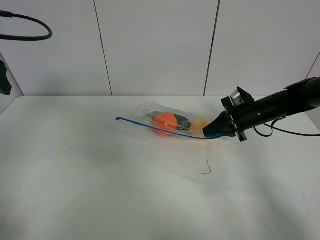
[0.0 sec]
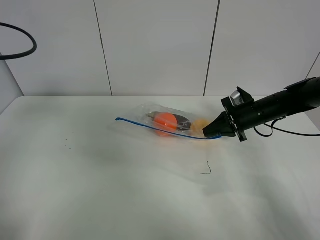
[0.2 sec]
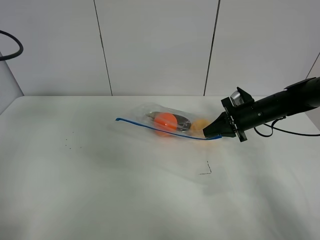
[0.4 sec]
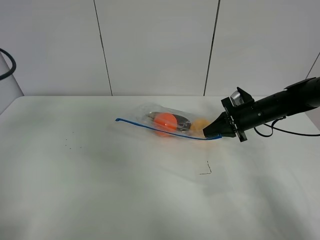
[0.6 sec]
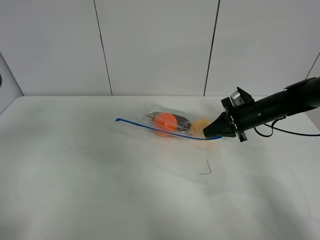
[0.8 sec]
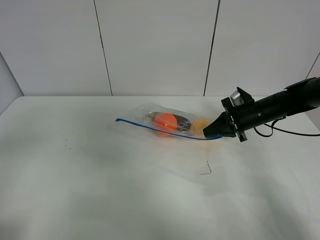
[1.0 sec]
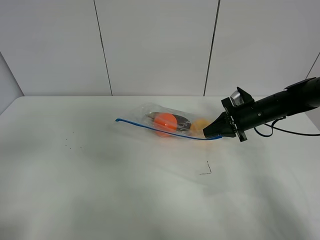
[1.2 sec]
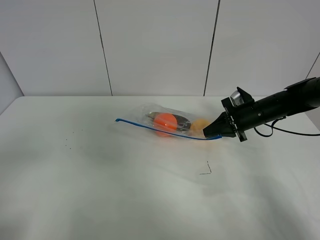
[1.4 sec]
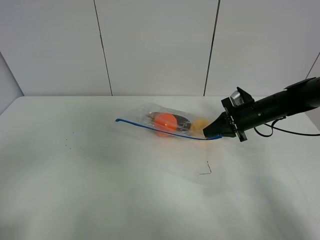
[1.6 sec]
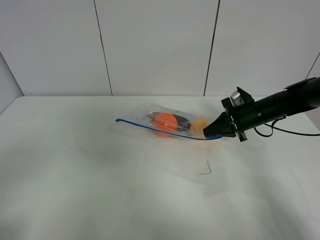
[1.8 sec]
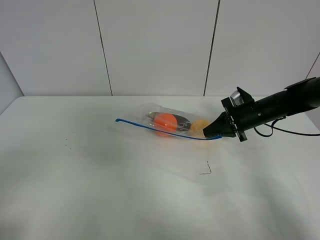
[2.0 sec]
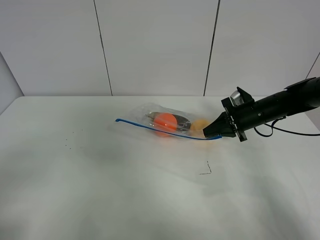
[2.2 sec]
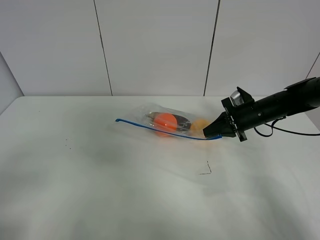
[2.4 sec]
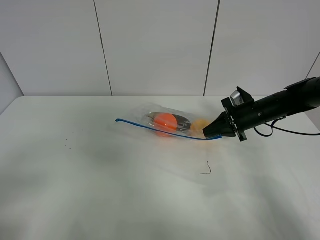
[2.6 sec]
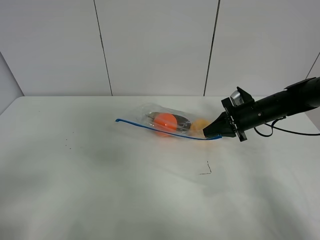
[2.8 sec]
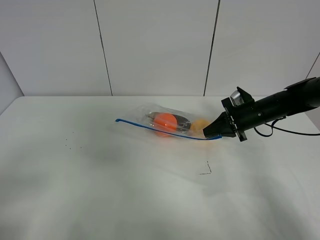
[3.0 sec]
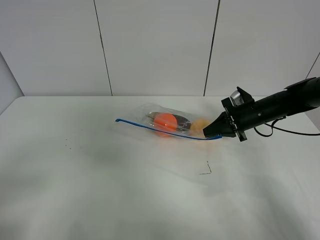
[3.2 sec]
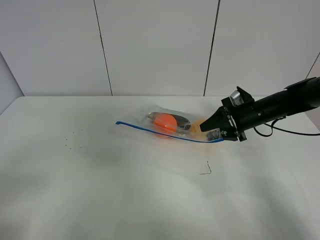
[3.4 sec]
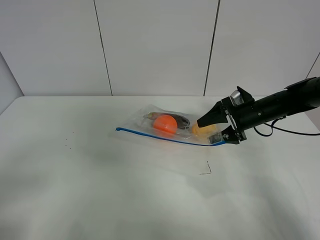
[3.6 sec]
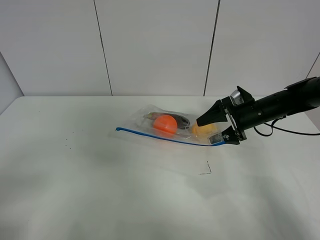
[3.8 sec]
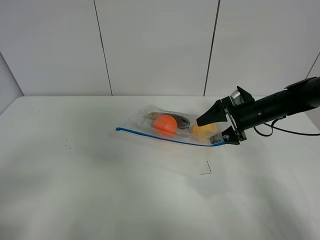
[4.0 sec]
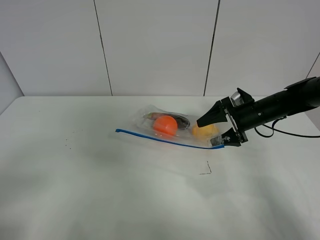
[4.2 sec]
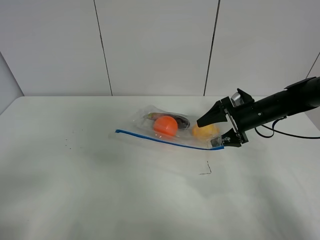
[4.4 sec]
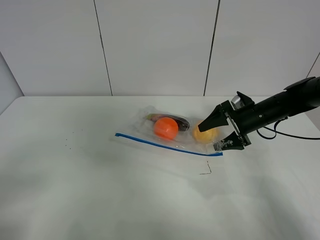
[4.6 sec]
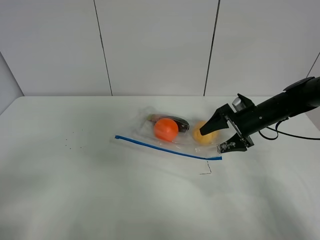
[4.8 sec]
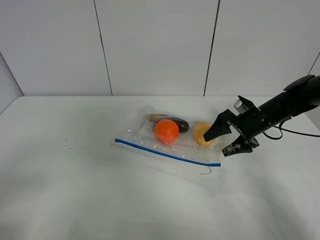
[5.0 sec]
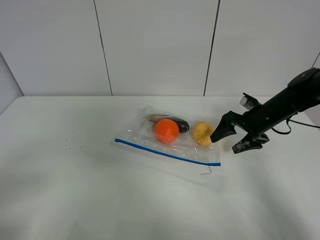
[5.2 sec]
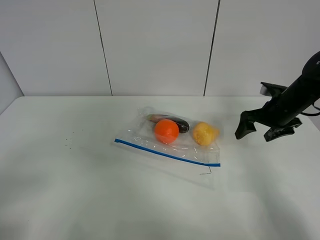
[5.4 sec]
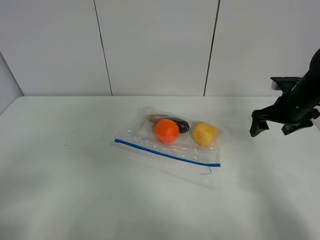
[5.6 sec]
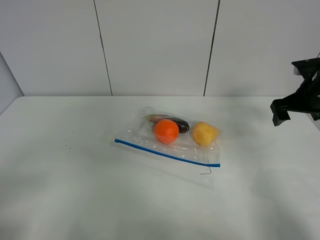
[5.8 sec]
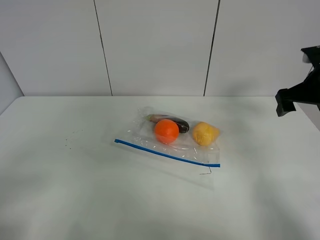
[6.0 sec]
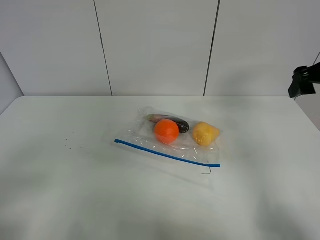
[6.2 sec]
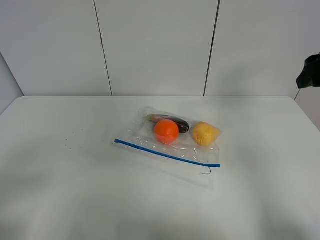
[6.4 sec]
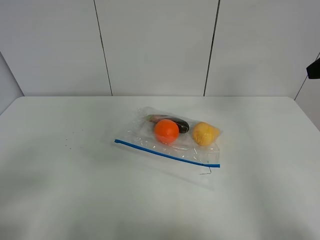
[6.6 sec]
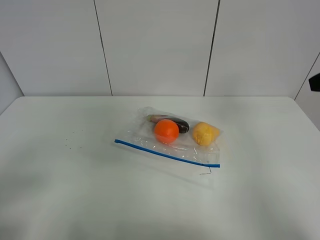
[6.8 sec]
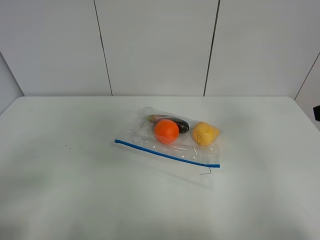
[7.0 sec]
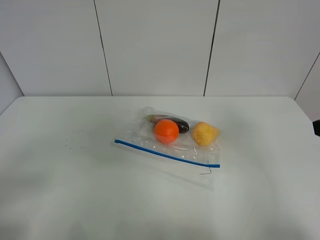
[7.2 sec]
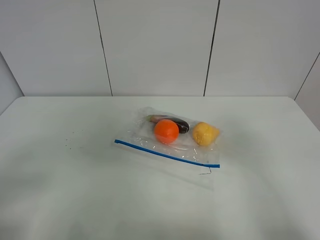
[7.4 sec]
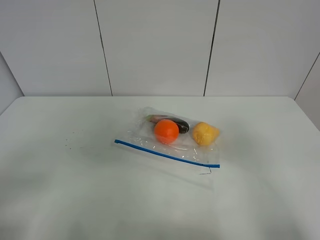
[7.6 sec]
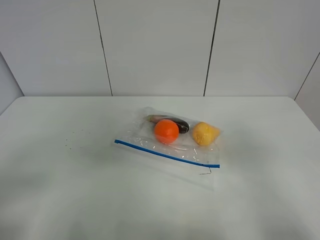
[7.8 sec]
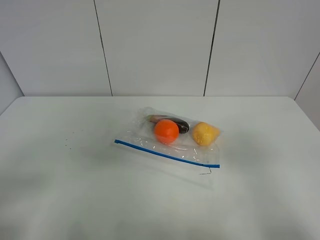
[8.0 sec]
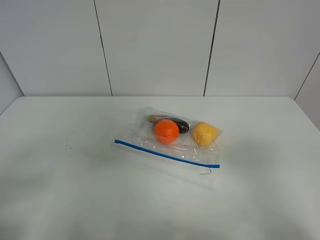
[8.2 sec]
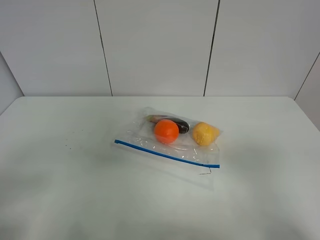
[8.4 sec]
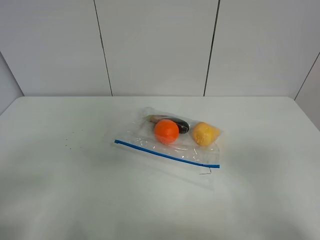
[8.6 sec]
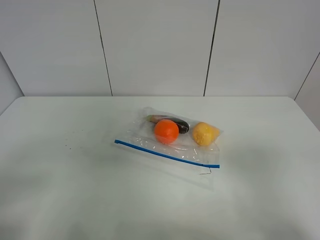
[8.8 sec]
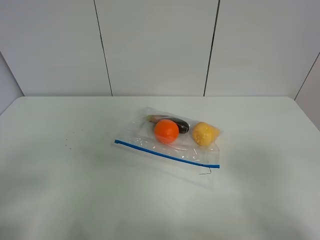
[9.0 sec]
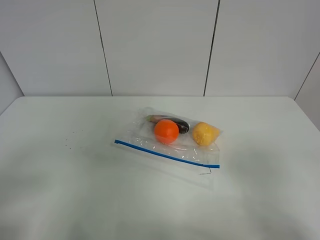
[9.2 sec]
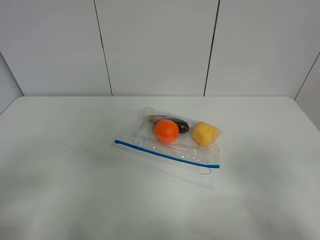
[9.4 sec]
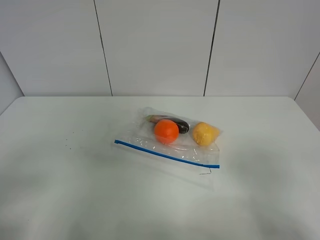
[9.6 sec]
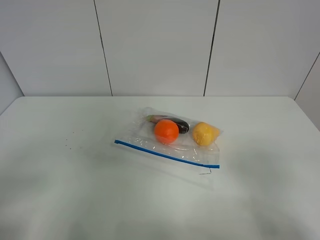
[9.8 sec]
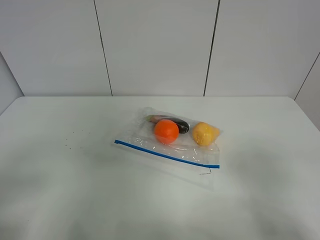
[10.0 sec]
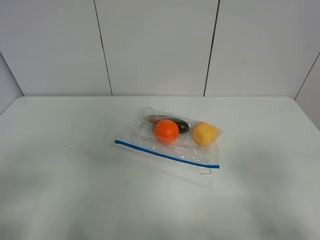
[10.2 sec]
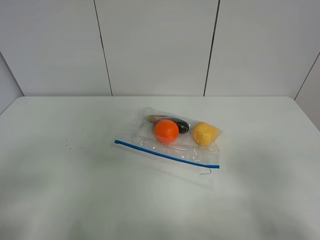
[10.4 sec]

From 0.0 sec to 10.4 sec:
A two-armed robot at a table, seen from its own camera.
From 0.0 sec to 1.4 sec: The left gripper heads backward, covering some 25 cm.
From 3.0 sec to 4.4 sec: The right gripper opens its fingers.
From 4.4 sec to 6.0 sec: The right gripper moves upward and to the right, roughly 15 cm.
From 6.0 sec to 7.4 sec: The right gripper heads backward, covering about 25 cm.
From 9.0 sec to 10.4 sec: The two grippers keep their place.

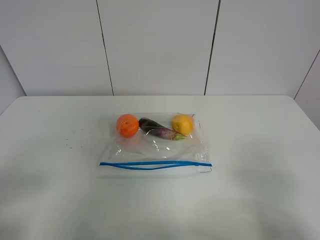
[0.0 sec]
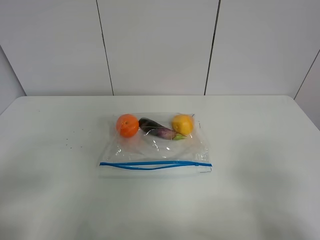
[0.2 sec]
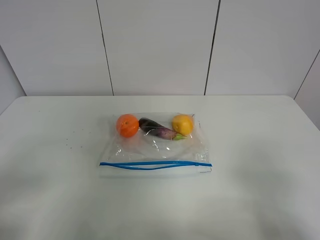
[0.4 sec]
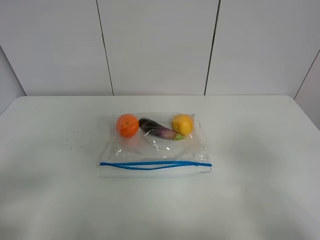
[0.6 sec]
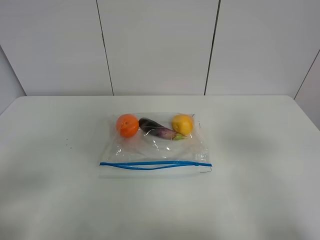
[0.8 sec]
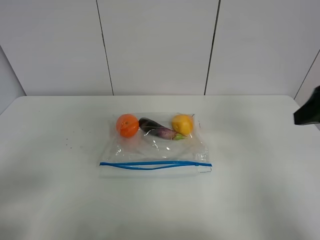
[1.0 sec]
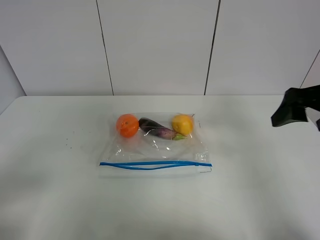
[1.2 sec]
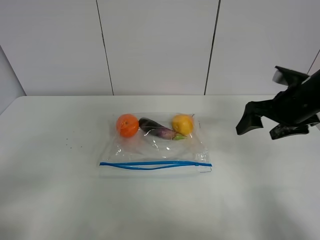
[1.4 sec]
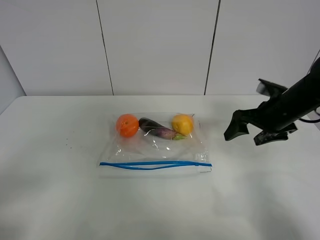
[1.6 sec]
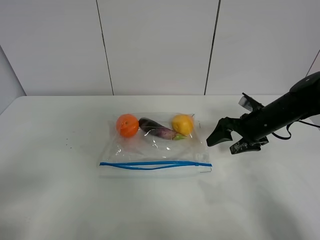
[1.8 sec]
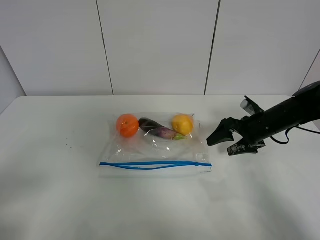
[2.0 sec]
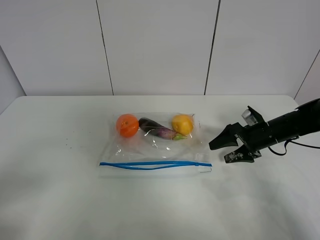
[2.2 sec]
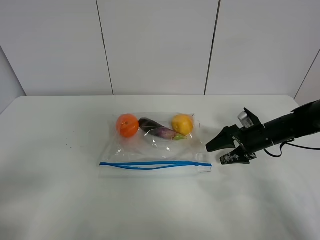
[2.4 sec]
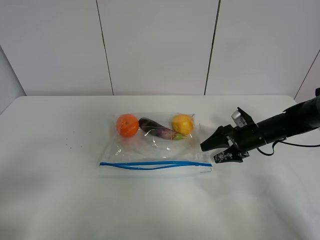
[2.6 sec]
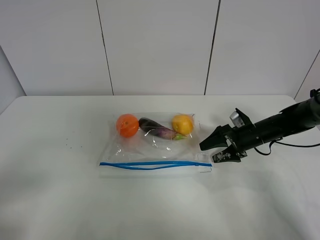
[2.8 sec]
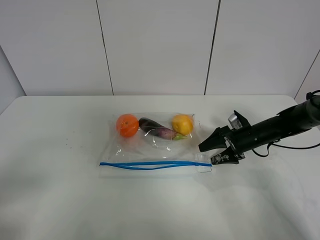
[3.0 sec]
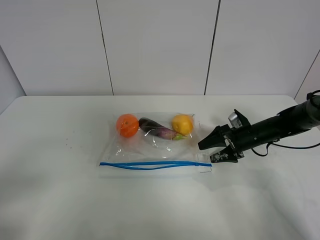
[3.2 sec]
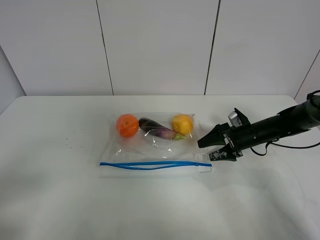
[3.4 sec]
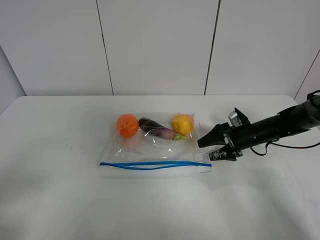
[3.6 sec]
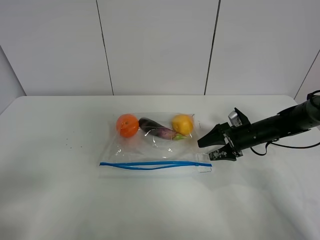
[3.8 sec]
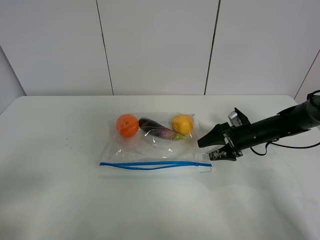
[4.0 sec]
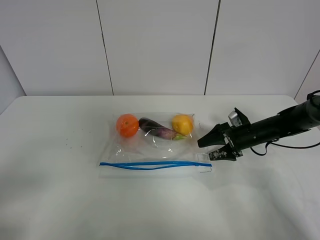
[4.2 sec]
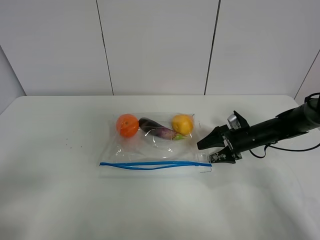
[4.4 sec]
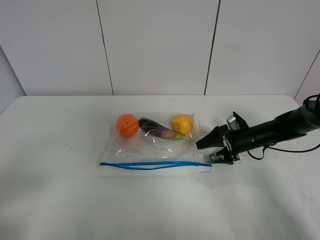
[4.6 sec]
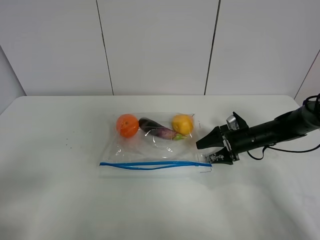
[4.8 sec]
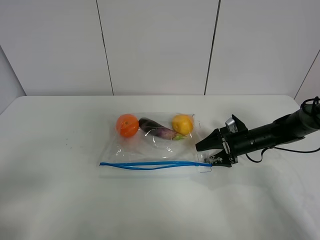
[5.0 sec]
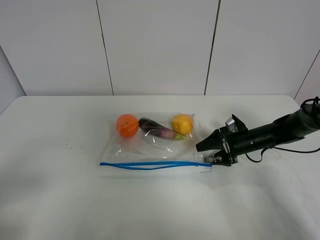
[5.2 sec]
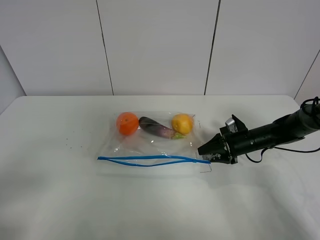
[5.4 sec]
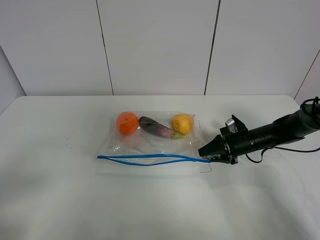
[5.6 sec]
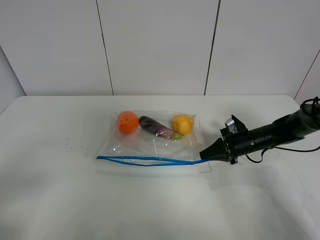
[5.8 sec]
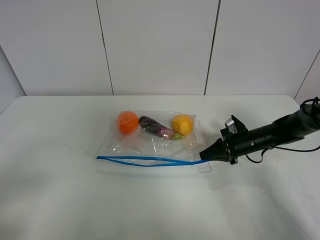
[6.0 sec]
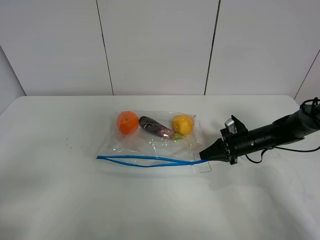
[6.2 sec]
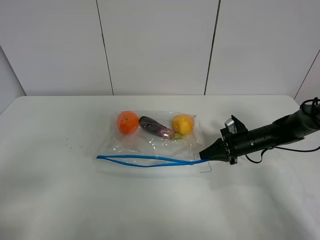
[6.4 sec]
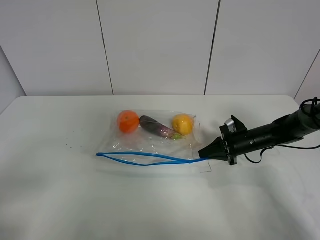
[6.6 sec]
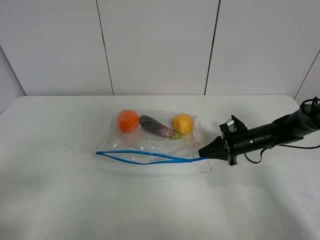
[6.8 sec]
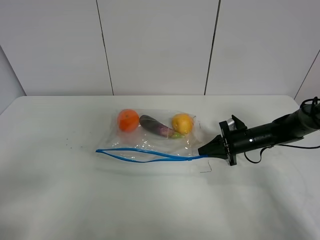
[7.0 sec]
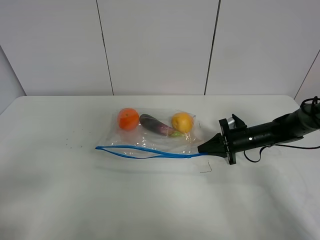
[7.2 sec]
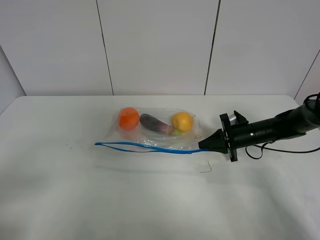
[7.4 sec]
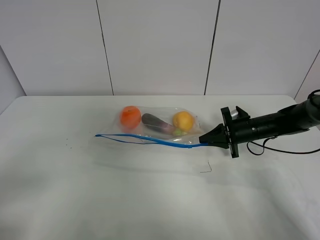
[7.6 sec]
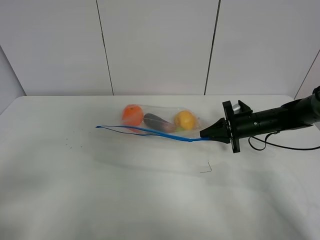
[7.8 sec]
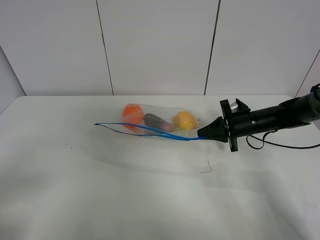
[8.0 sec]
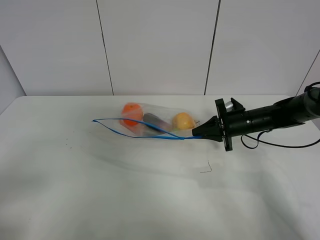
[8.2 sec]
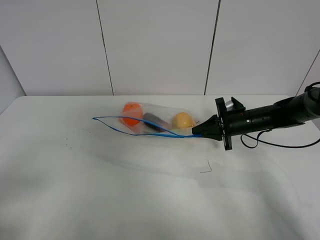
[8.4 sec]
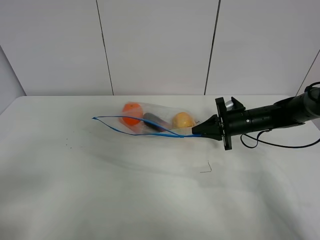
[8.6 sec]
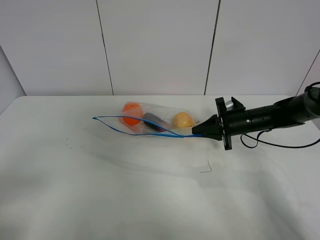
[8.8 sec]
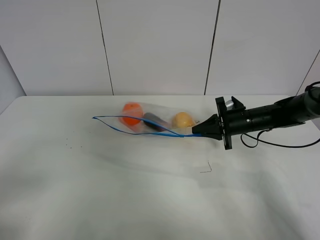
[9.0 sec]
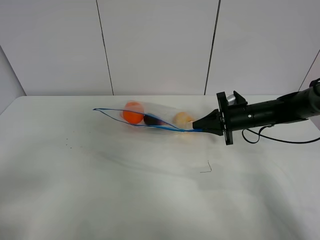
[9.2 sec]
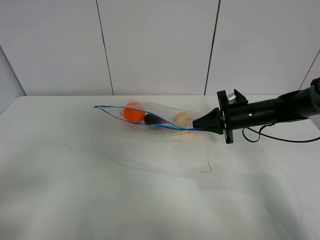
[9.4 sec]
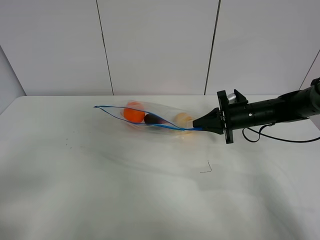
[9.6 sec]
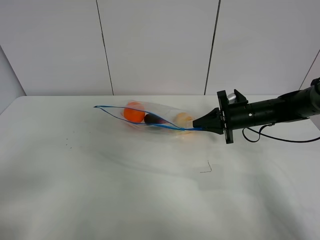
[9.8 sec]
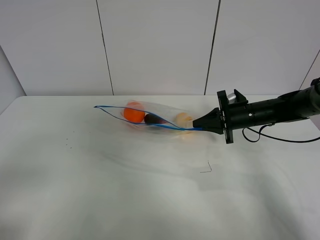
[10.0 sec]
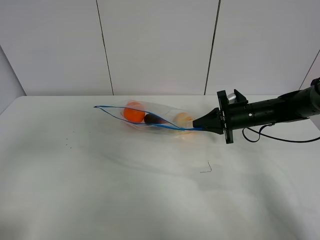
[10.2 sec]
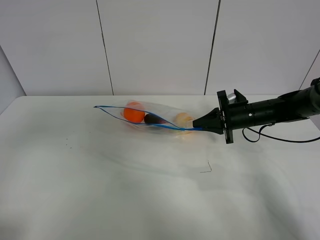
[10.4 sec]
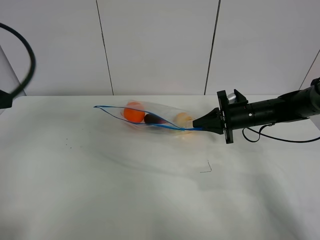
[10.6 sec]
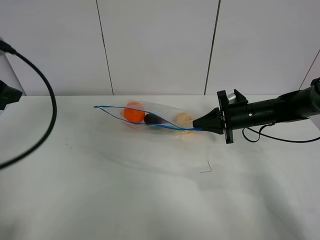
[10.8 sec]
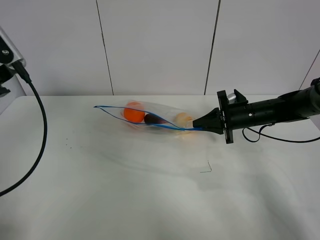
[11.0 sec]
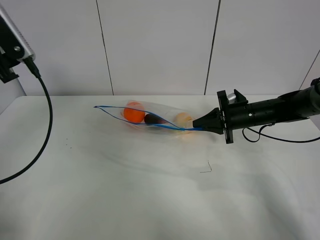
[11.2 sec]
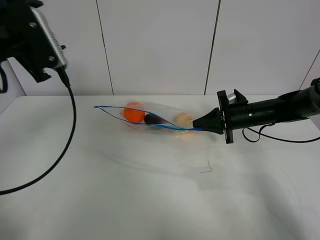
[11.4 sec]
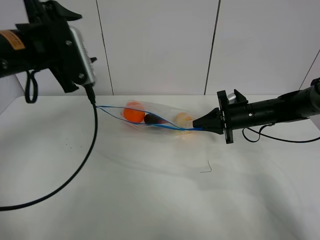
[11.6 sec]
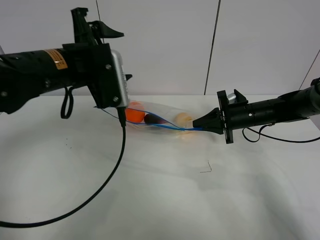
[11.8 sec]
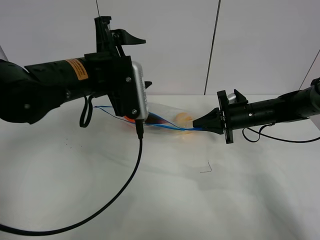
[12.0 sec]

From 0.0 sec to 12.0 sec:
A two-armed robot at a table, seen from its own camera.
Step, from 0.0 sec to 5.8 sec: Grasp the fruit bag with right gripper.
Step, from 6.0 sec to 9.4 sec: Lift the fruit bag with your right gripper.
From 0.0 sec to 1.6 sec: The right gripper heads forward, covering approximately 30 cm.
From 1.6 sec to 3.0 sec: The right gripper travels downward by some 15 cm.
From 3.0 sec to 4.4 sec: Both grippers stay about where they are.
From 4.4 sec to 6.0 sec: The right gripper closes up.
From 6.0 sec to 7.6 sec: There are only small adjustments of the grippers.
From 7.6 sec to 9.0 sec: The grippers stay close to where they were, moving slightly.
From 9.0 sec to 10.4 sec: The left gripper heads forward and upward, covering some 15 cm.
From 10.4 sec to 12.0 sec: The left gripper goes approximately 25 cm to the right and forward.
